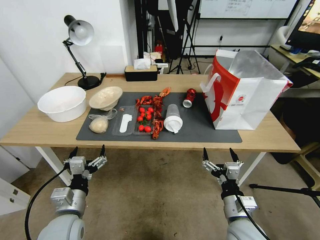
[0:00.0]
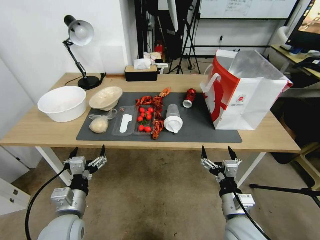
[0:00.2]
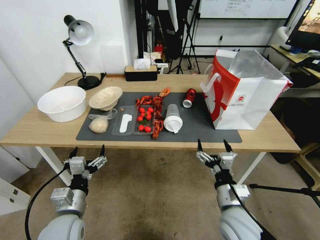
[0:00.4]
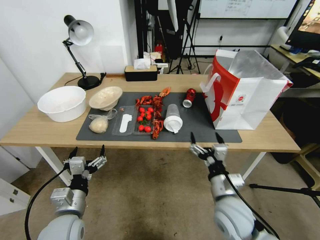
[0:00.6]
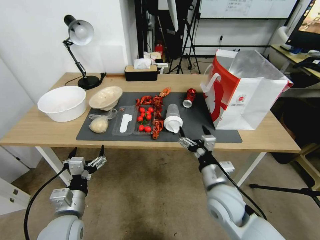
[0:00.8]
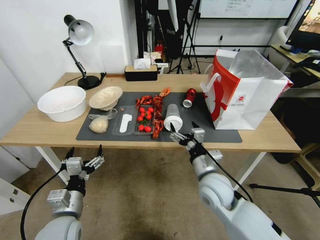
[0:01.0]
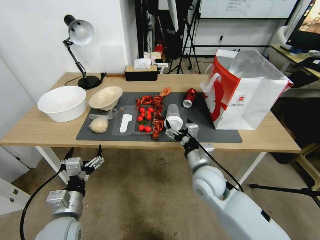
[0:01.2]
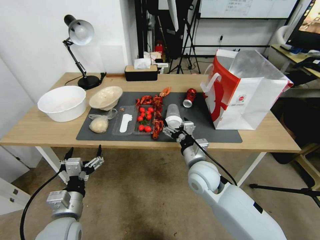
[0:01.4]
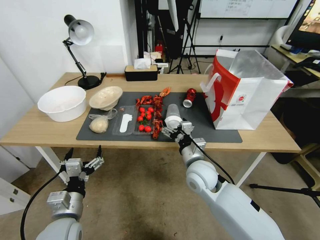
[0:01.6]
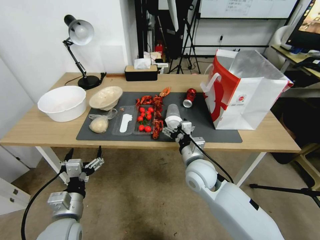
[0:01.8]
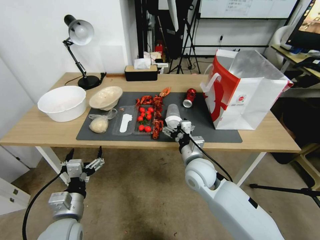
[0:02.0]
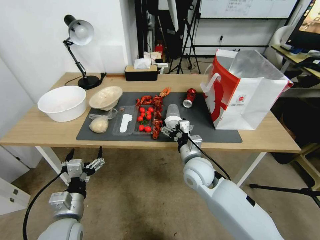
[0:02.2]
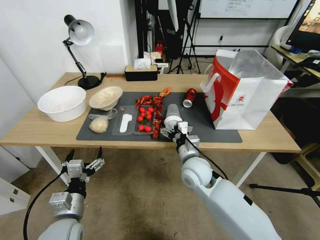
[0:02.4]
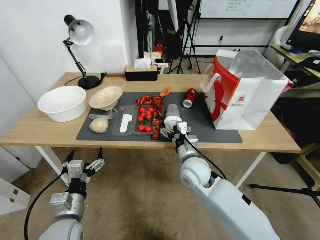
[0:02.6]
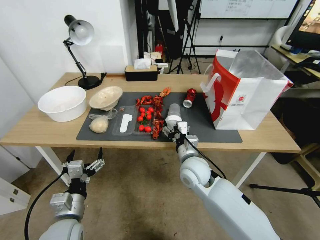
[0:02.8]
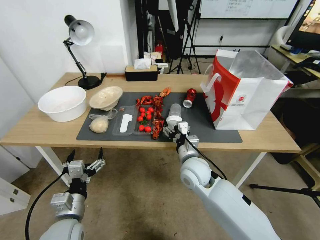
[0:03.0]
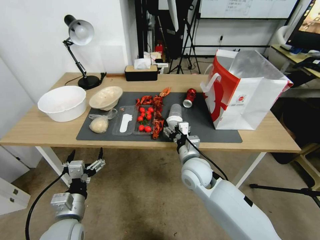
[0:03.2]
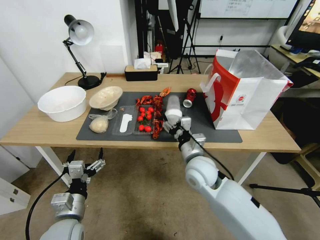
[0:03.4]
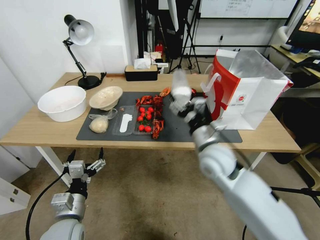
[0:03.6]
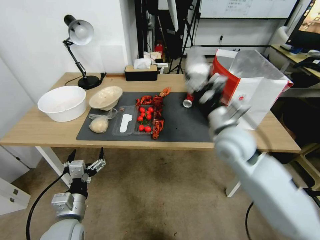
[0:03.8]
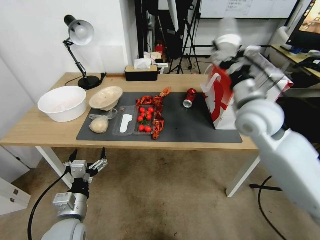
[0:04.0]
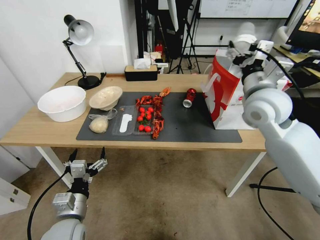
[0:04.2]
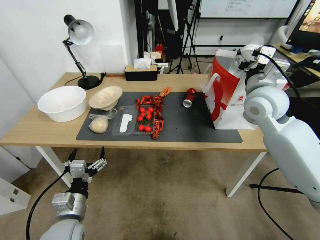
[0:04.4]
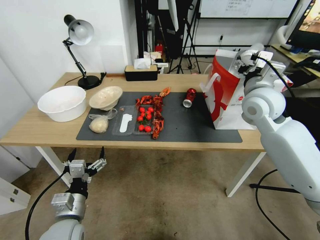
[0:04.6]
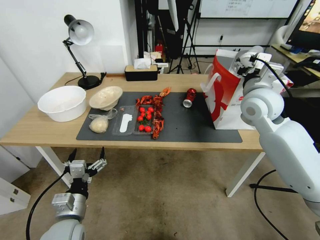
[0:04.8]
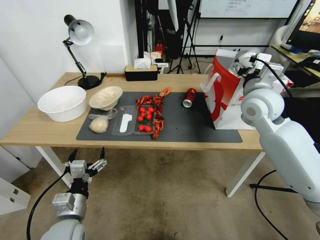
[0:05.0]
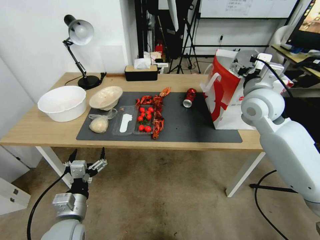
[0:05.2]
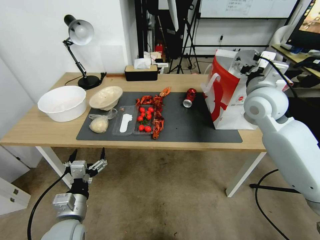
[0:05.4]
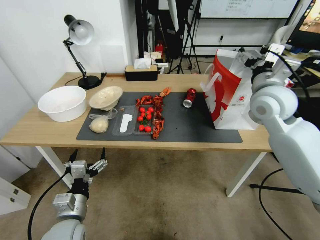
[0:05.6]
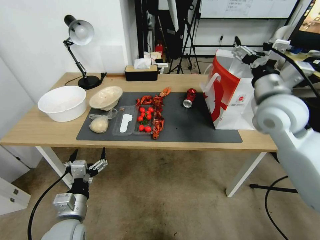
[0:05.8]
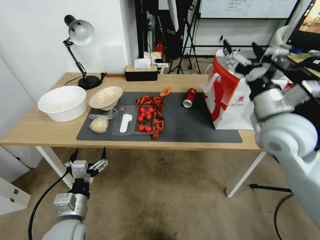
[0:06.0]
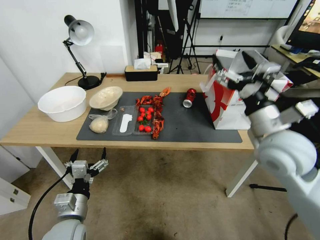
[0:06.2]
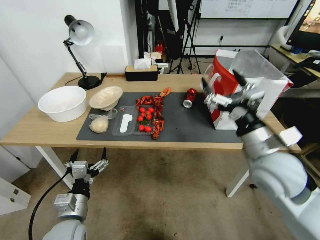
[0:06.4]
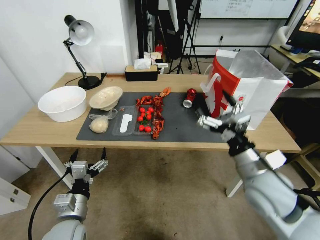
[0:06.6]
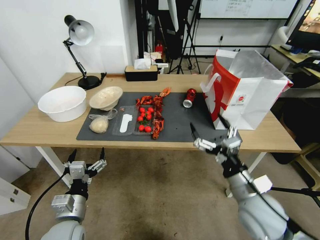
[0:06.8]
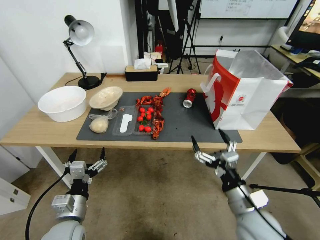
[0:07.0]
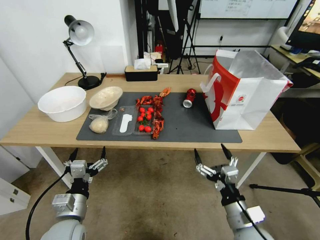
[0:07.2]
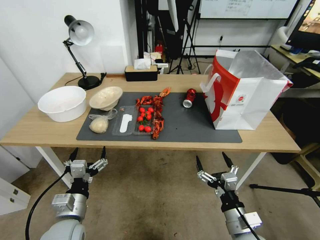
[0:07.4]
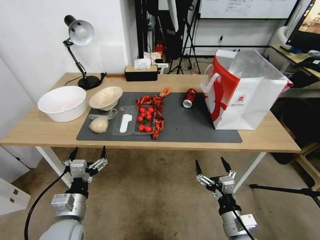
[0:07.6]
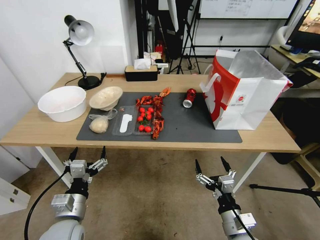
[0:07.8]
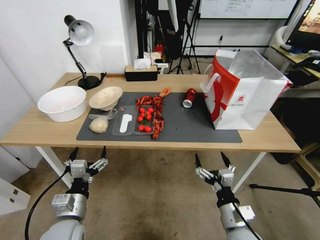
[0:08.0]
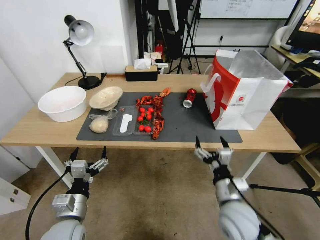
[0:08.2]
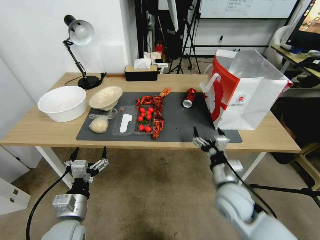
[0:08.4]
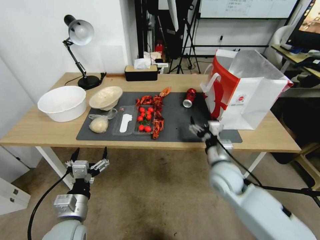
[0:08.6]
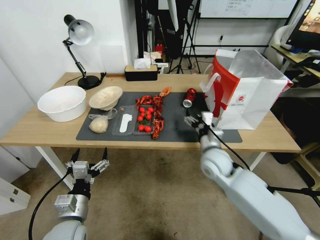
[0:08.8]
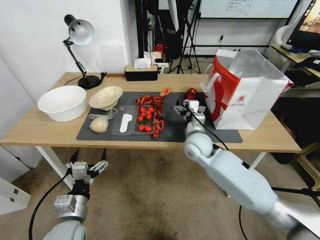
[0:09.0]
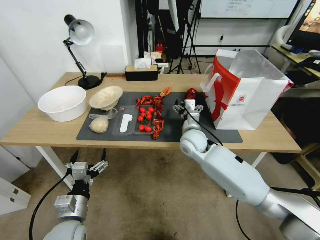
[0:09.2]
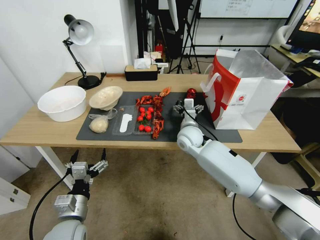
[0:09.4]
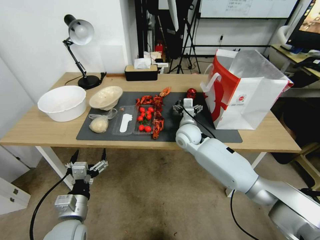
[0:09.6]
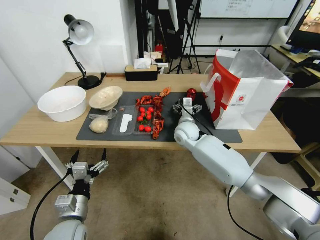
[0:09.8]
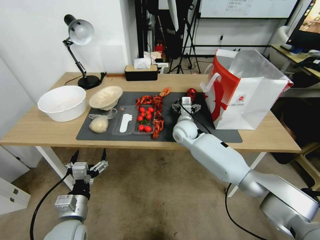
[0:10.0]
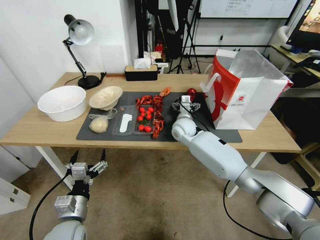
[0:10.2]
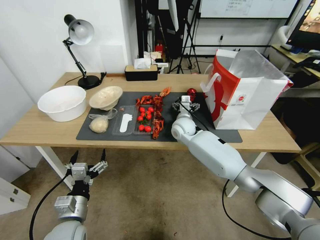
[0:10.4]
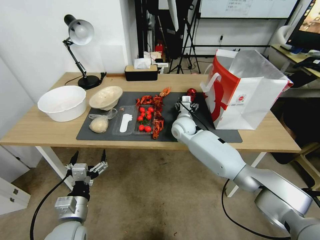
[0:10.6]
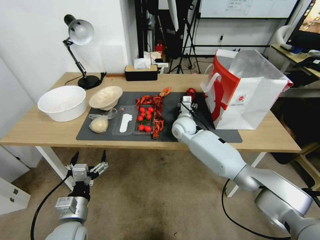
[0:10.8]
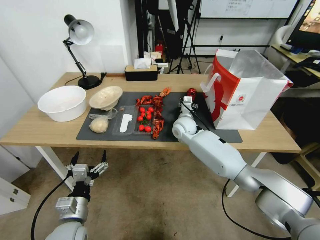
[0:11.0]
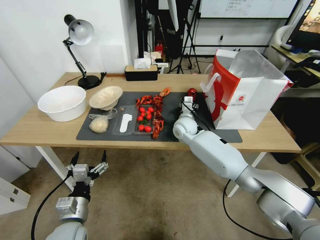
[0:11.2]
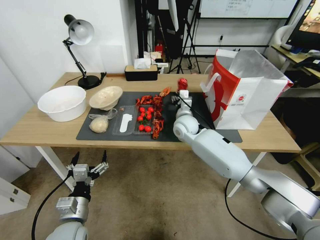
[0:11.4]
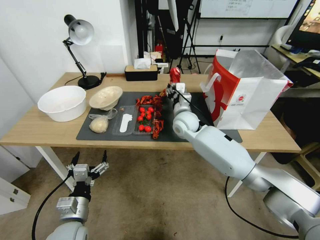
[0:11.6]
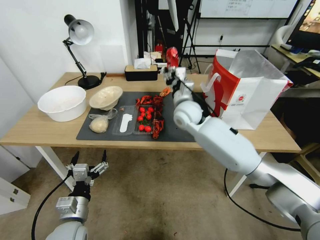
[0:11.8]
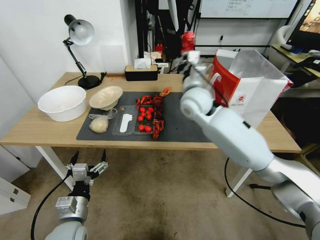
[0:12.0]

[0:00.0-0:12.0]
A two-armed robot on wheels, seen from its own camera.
0:00.0 to 0:01.6: The right gripper moves forward and to the left, approximately 20 cm.
0:01.6 to 0:03.0: There are only small adjustments of the grippers.
0:03.0 to 0:04.4: The right gripper goes roughly 30 cm upward and to the right.
0:04.4 to 0:06.0: The right gripper is displaced backward by about 5 cm.
0:06.0 to 0:07.6: The right gripper is displaced downward and backward by about 35 cm.
0:07.6 to 0:09.0: The right gripper is displaced forward by about 30 cm.
0:09.0 to 0:10.4: The right gripper heads forward, covering some 10 cm.
0:10.4 to 0:12.0: The right gripper is displaced upward by roughly 15 cm, and closes its fingers.

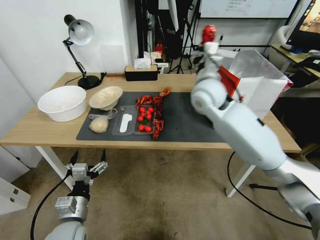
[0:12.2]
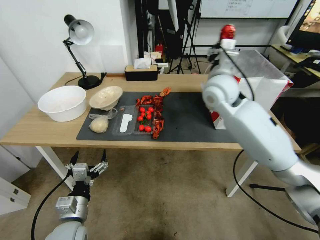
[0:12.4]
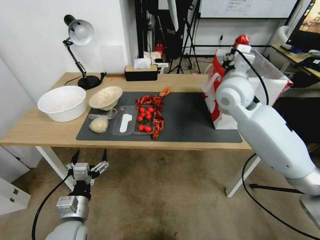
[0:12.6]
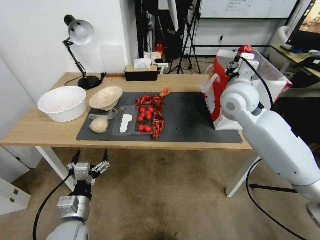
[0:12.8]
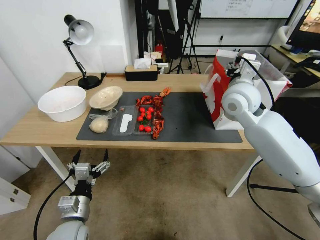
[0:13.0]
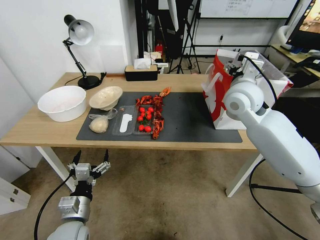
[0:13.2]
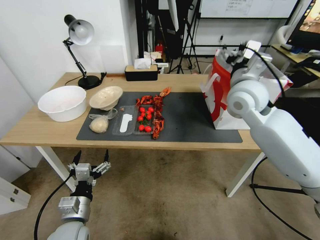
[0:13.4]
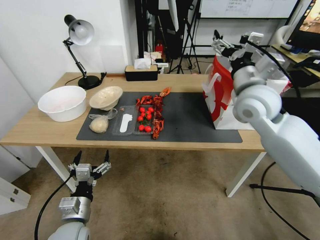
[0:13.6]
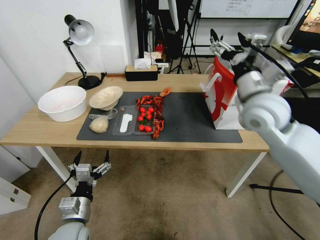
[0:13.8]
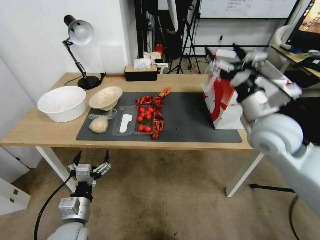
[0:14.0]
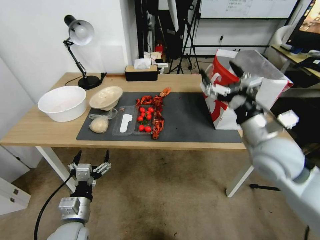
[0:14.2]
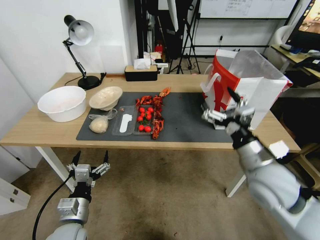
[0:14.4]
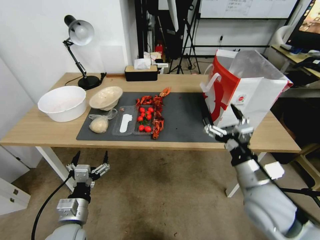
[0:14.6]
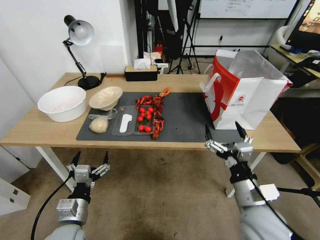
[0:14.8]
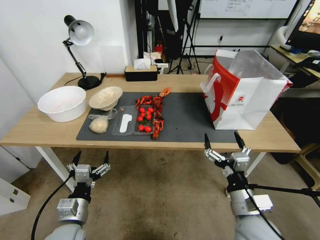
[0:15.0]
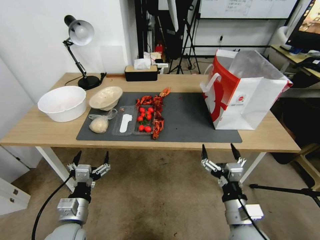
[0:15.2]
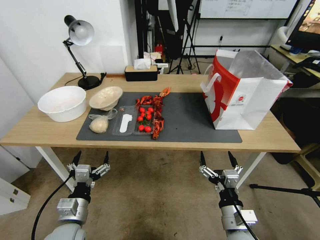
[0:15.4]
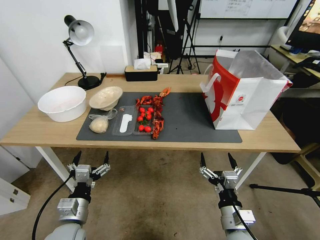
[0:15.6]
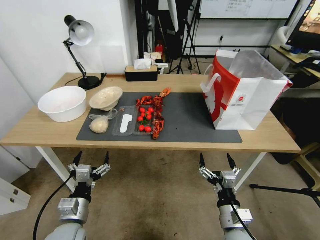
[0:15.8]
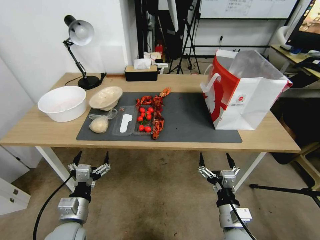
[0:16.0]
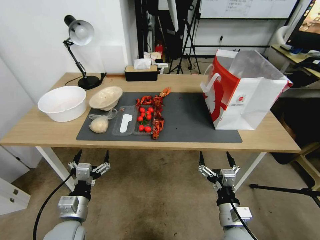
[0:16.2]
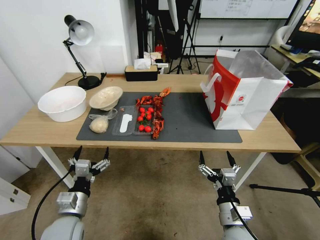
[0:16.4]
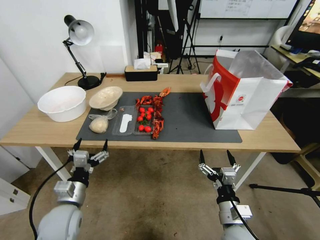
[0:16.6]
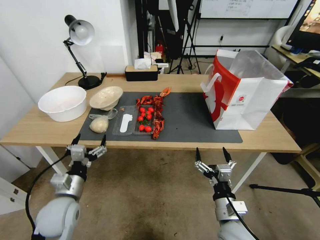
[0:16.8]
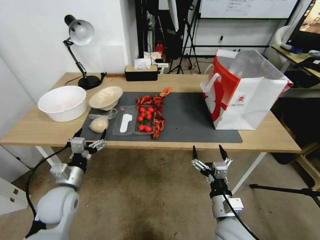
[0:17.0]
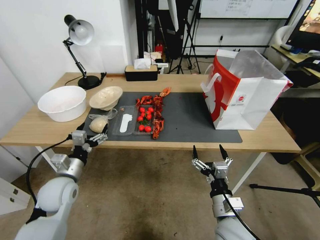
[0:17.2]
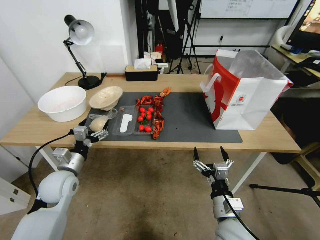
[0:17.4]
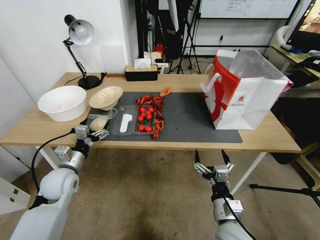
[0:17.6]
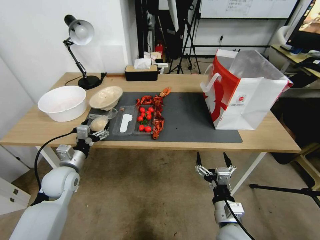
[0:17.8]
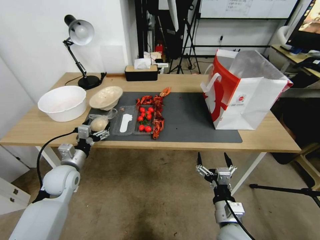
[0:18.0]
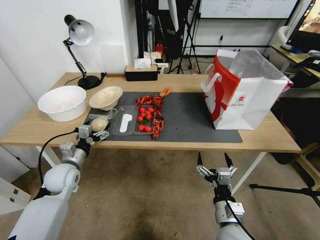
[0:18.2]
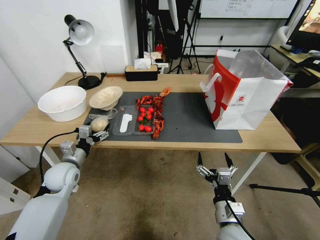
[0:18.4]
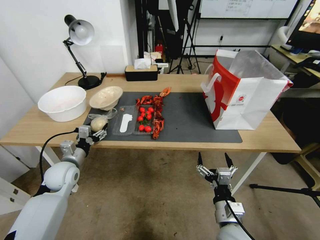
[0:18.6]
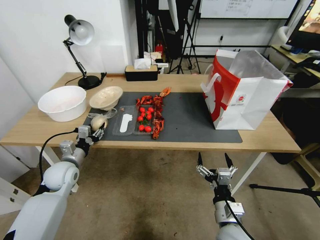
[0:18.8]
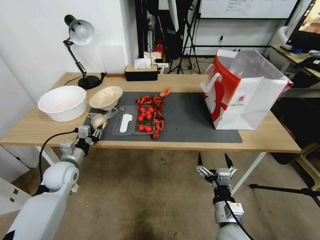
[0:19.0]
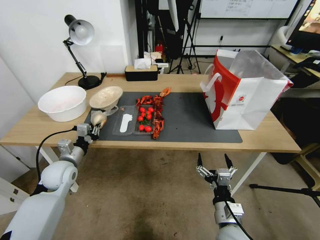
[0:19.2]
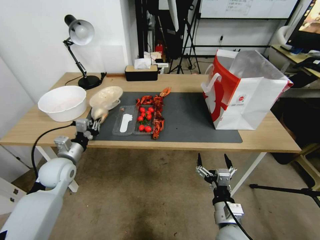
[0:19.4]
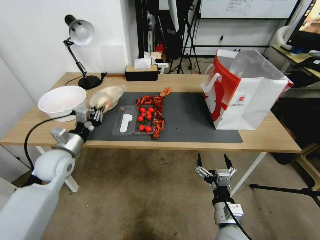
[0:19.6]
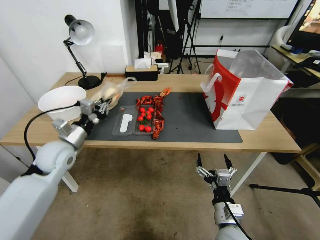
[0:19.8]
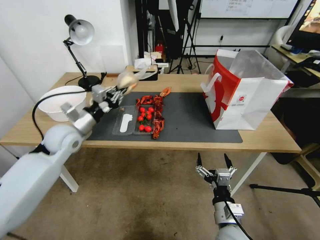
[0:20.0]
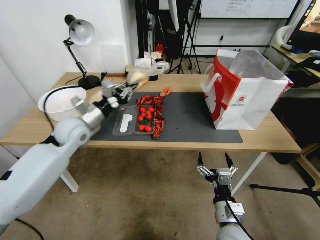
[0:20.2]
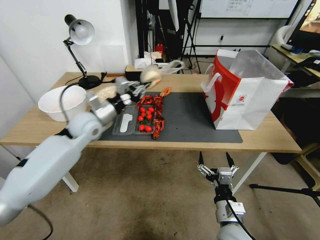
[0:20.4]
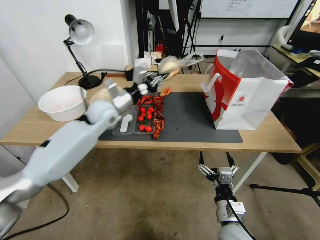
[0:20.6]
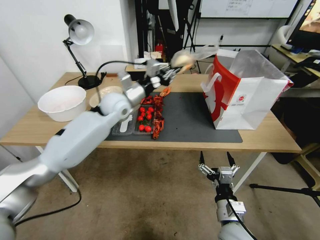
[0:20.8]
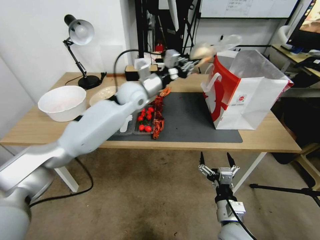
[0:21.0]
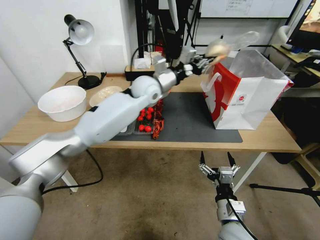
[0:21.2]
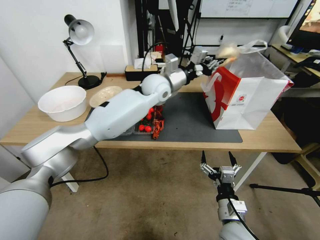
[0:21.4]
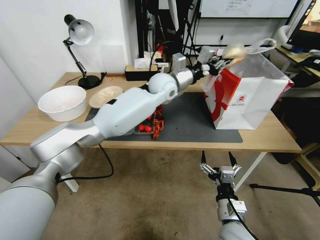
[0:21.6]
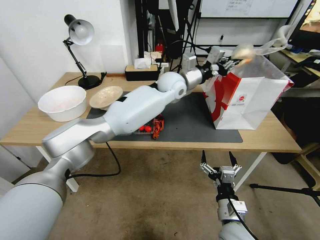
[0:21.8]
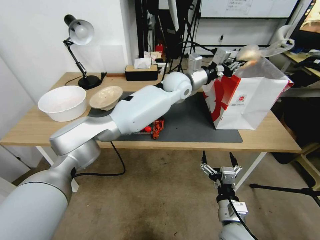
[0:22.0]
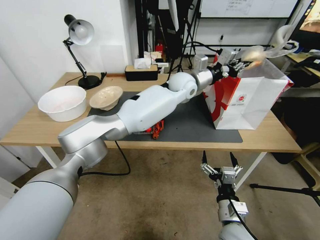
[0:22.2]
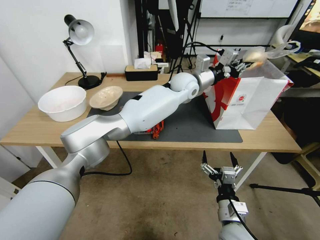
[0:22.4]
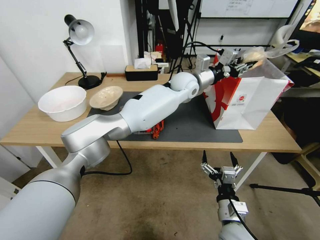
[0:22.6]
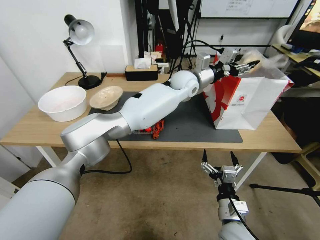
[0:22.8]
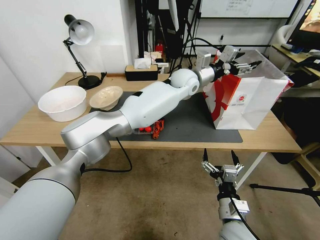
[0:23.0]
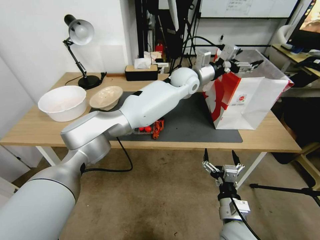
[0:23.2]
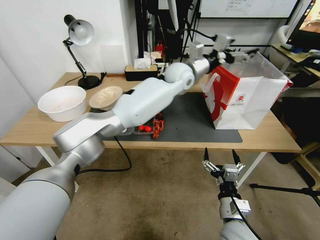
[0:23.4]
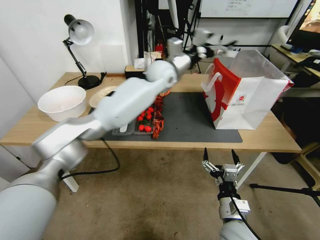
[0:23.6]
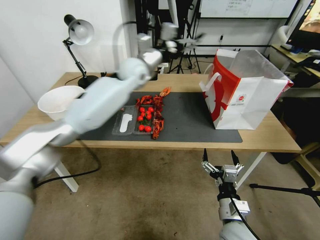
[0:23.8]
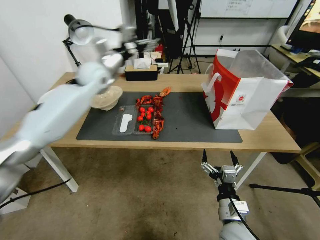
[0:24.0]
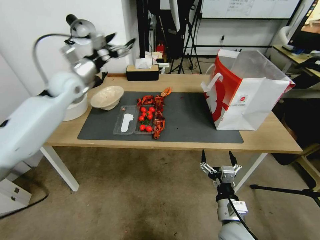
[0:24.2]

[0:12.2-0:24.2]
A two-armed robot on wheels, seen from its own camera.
0:12.2 to 0:13.8: The right gripper heads to the right and backward, covering about 15 cm, and opens its fingers.
0:13.8 to 0:15.2: The right gripper goes approximately 35 cm downward and backward.
0:15.2 to 0:16.6: The grippers stay close to where they were, moving slightly.
0:16.6 to 0:18.2: The left gripper heads forward and to the left, covering about 15 cm.
0:18.2 to 0:19.8: The left gripper shifts roughly 10 cm upward, and closes up.
0:19.8 to 0:21.2: The left gripper is displaced to the right, forward and upward by approximately 30 cm.
0:21.2 to 0:22.6: The left gripper travels to the right by approximately 15 cm.
0:22.6 to 0:24.2: The left gripper is displaced to the left by roughly 40 cm, and opens its fingers.
